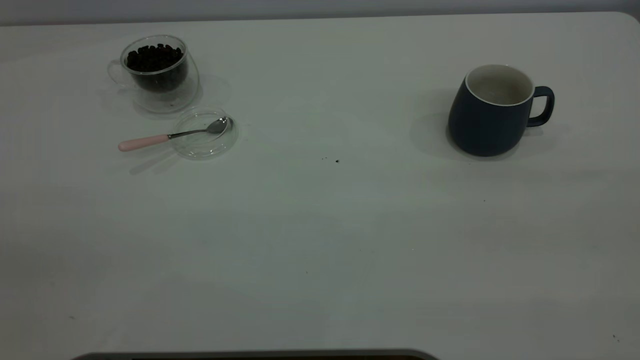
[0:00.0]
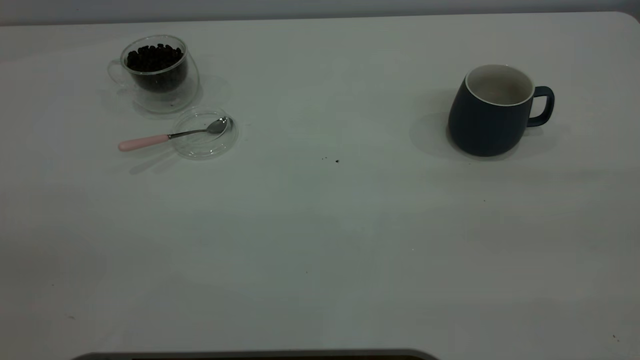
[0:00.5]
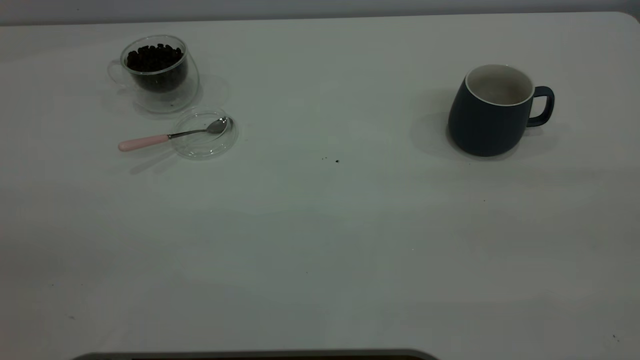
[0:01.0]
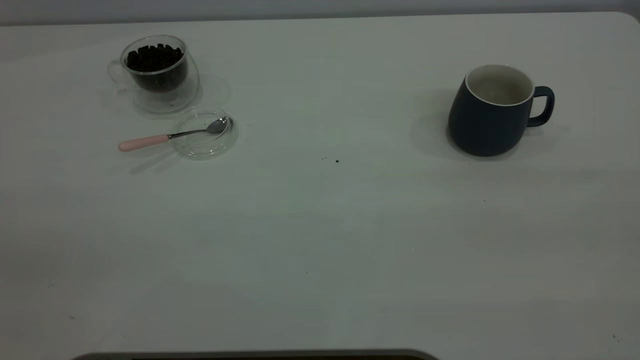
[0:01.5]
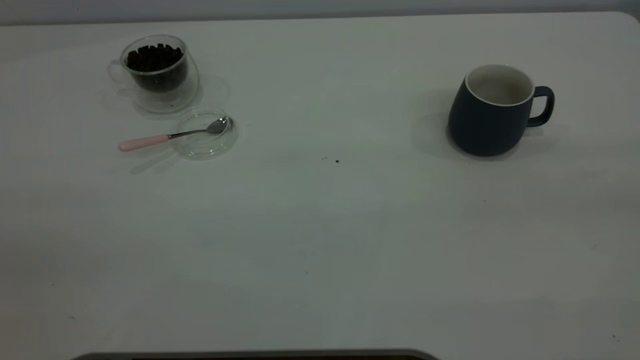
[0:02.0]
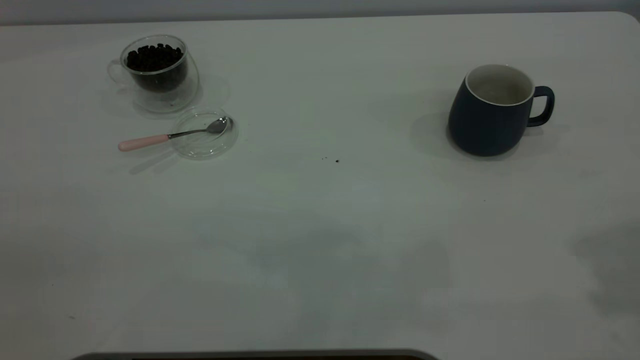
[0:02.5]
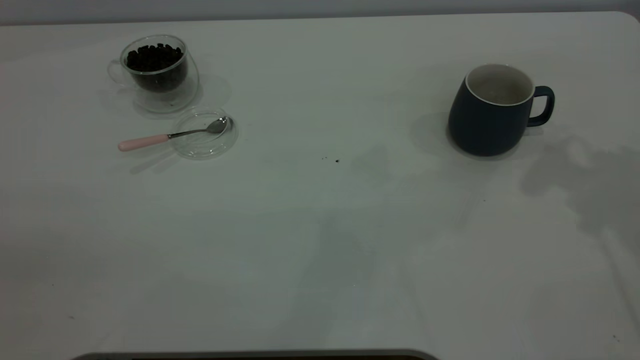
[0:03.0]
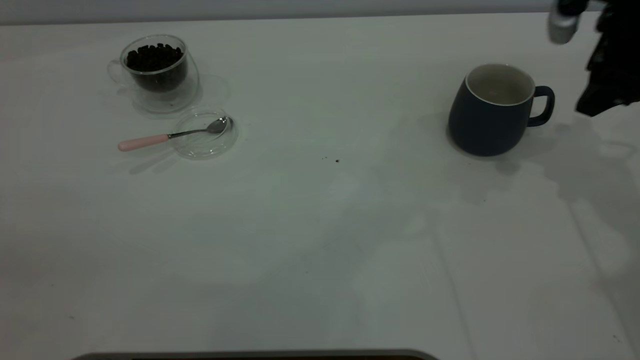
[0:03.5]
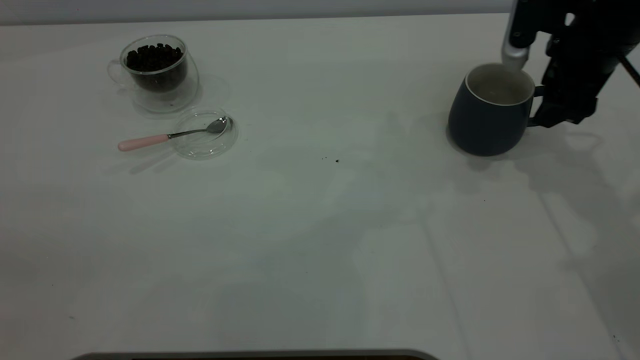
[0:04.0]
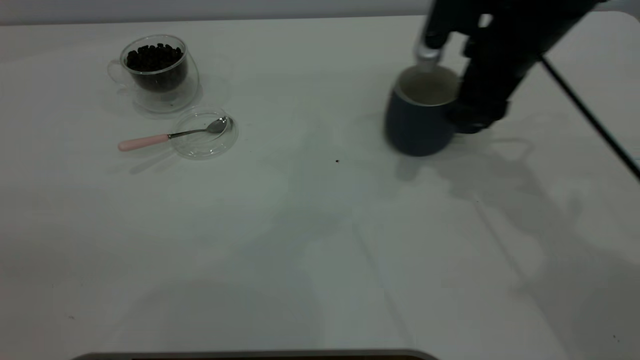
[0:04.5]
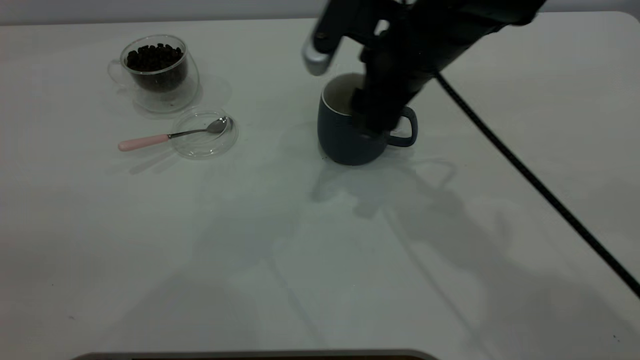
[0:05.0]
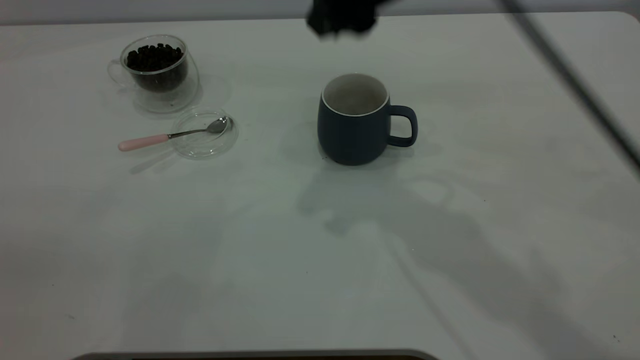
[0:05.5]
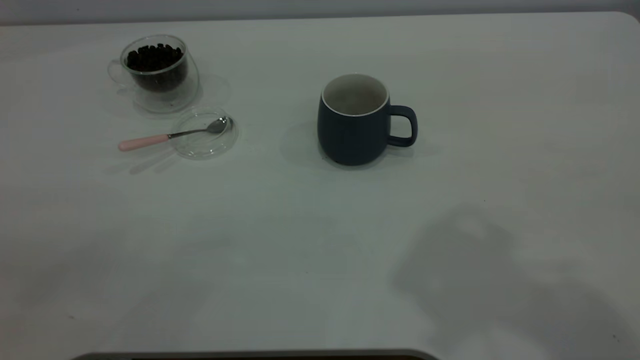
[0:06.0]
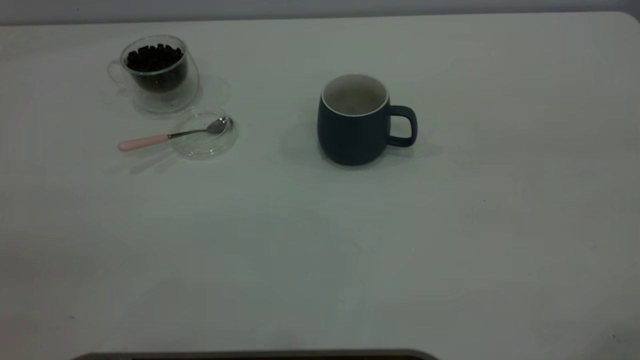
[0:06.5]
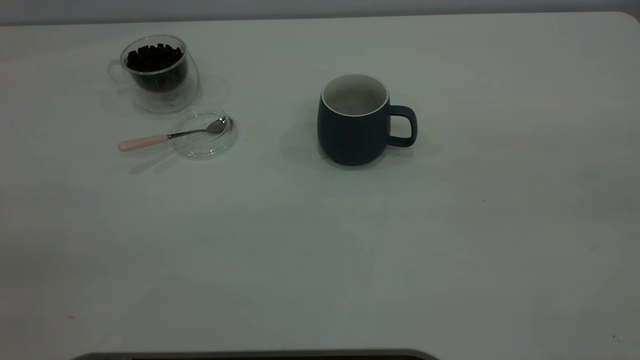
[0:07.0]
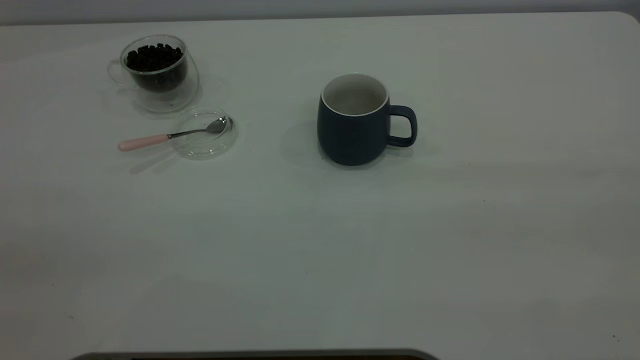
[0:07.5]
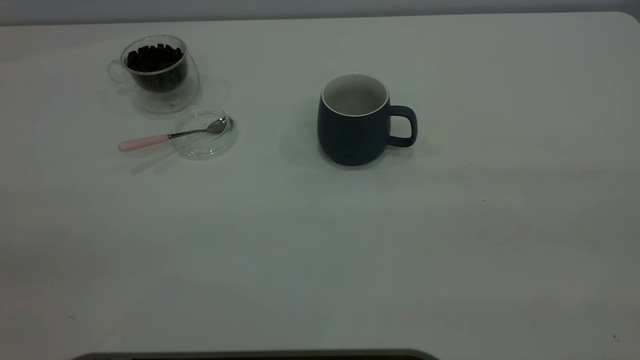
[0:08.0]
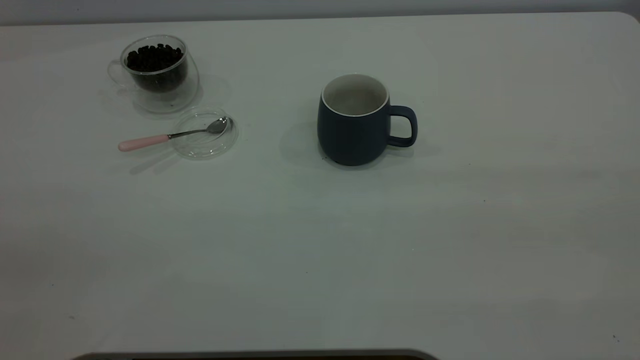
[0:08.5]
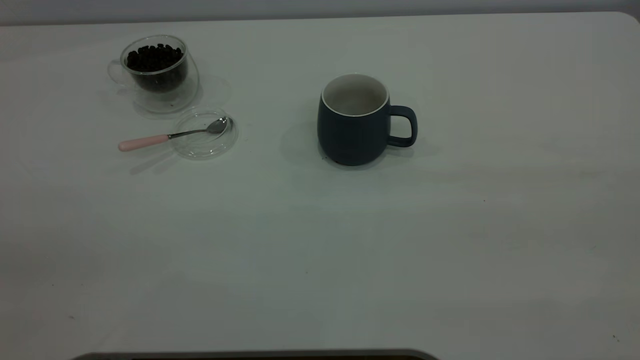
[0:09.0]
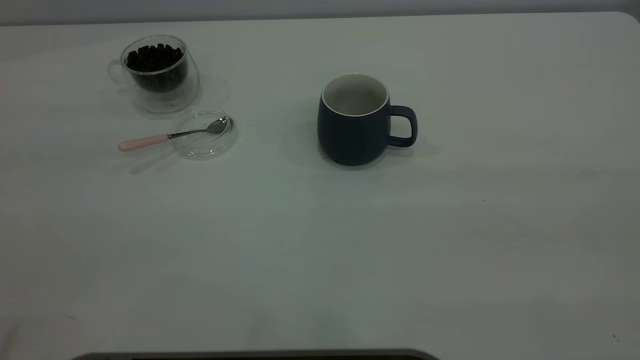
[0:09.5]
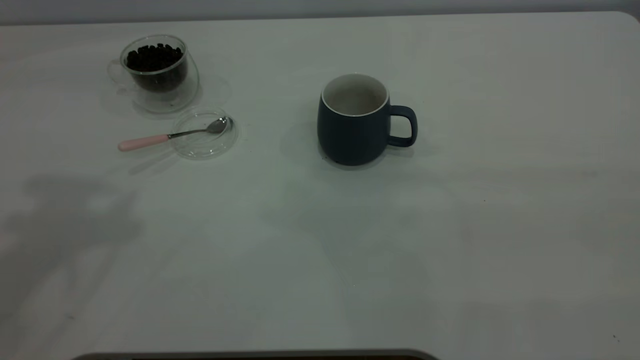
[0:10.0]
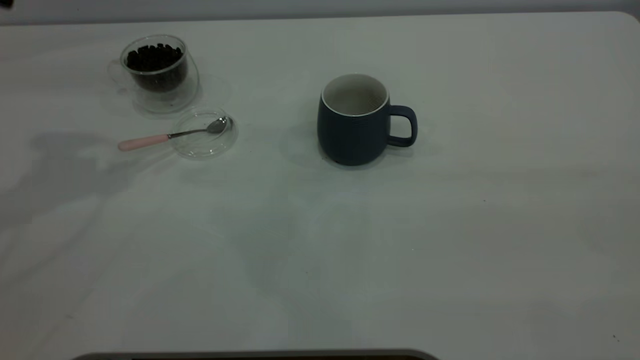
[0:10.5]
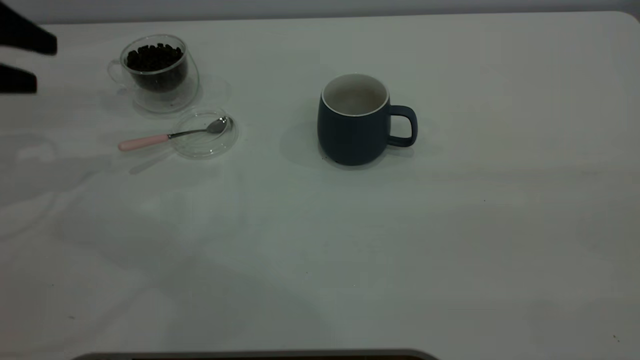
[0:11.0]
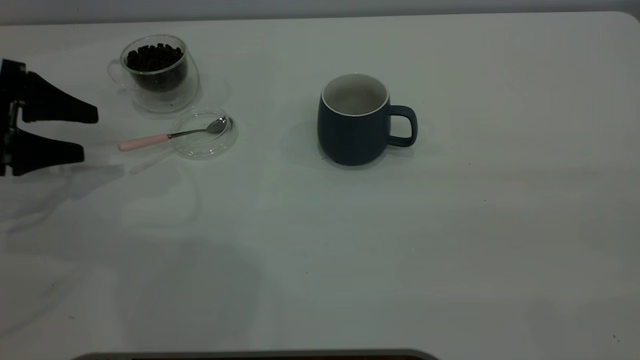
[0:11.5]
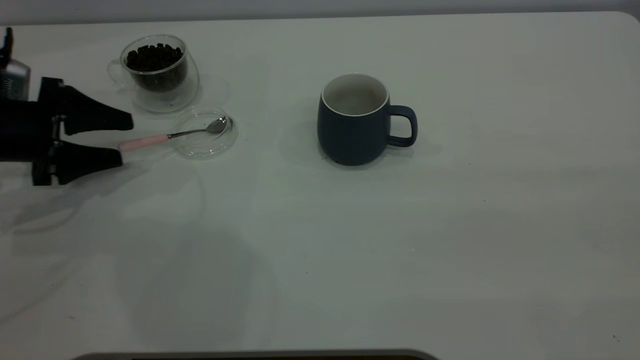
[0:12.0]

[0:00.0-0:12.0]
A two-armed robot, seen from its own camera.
Task of the whole recording: the right gripper place the grey cup in the center of the table, the left gripper take the pink spoon from the cup lid and scoop out the coffee beans from the coffee cup and put them into the grey cup, the left gripper put the spoon back into the cup lid.
Step, 0:00.0 to 0:05.0: Move the cup to the center of view.
0:02.0 to 0:04.0: The right gripper moves forward and downward, about 40 cm.
0:04.0 to 0:06.0: The right gripper travels upward and backward by roughly 35 cm.
0:10.0 to 0:12.0: The left gripper is displaced downward by some 35 cm.

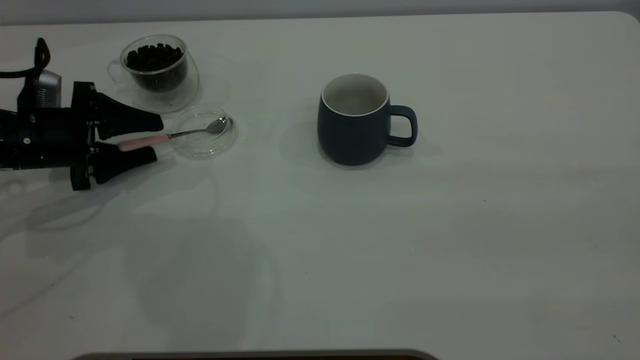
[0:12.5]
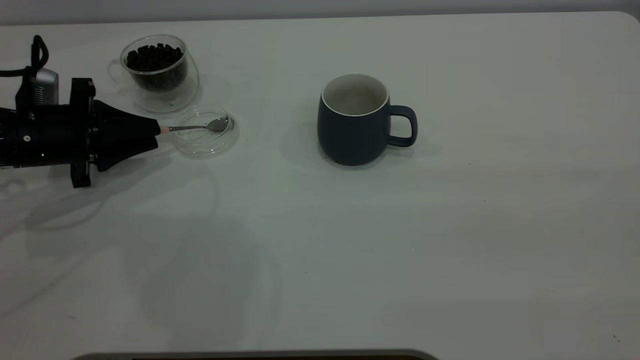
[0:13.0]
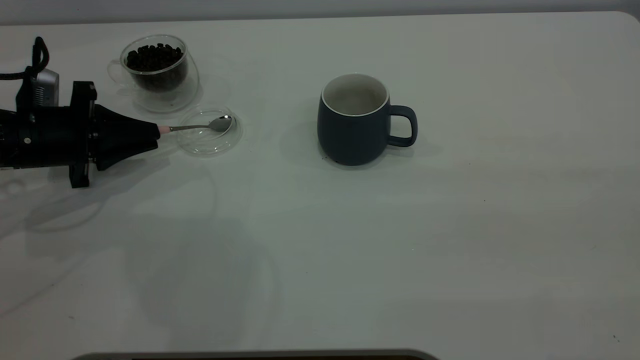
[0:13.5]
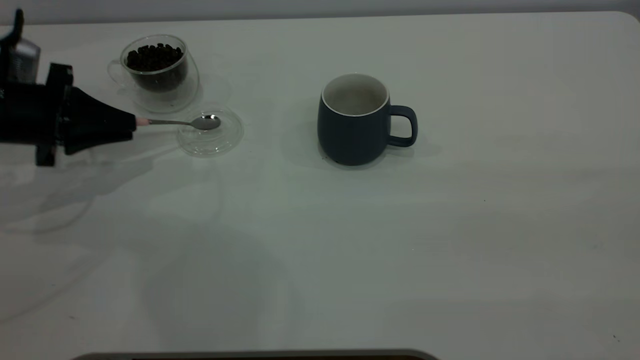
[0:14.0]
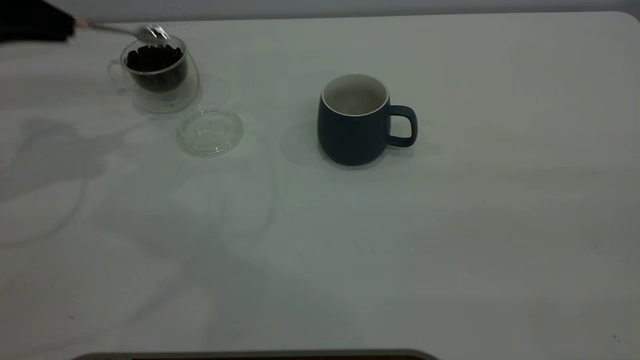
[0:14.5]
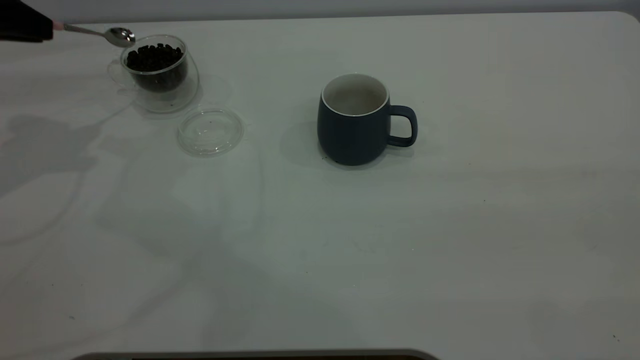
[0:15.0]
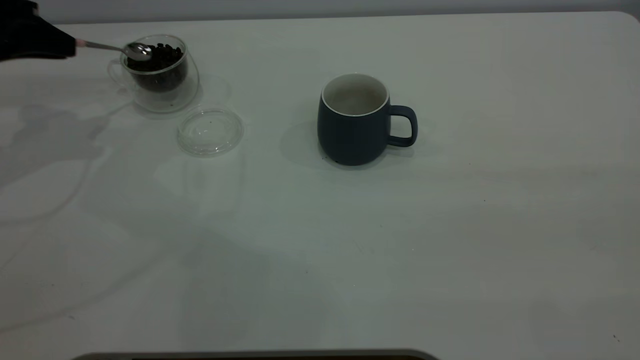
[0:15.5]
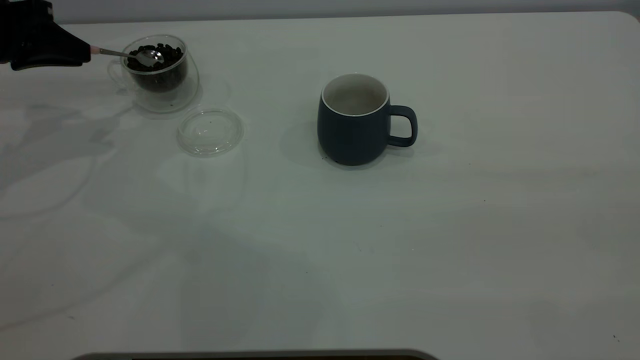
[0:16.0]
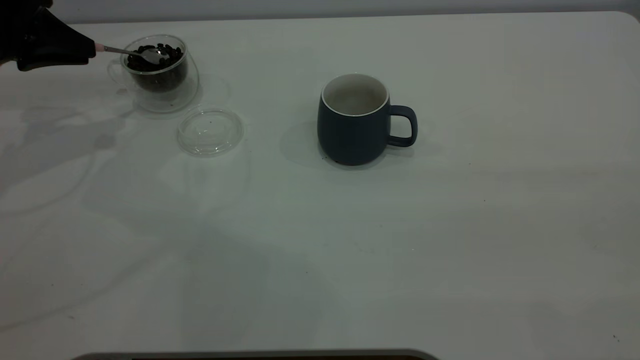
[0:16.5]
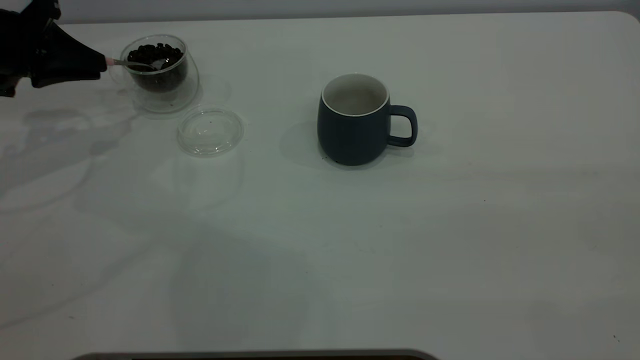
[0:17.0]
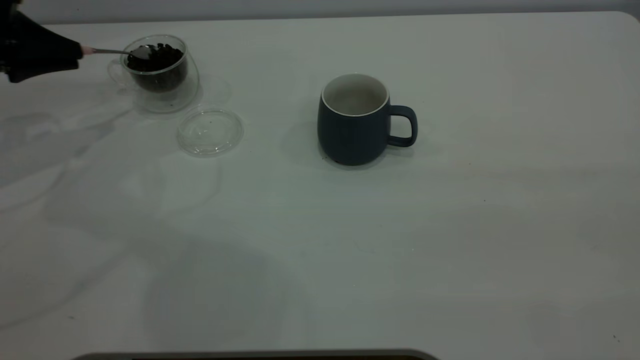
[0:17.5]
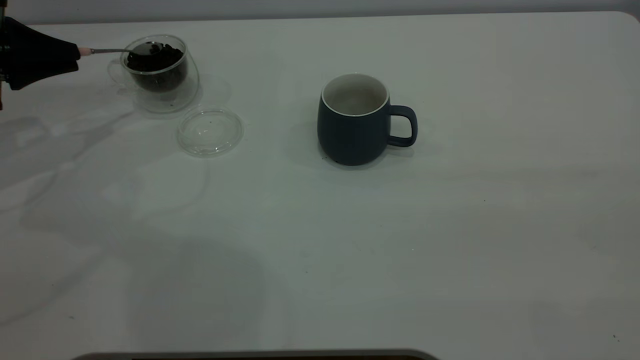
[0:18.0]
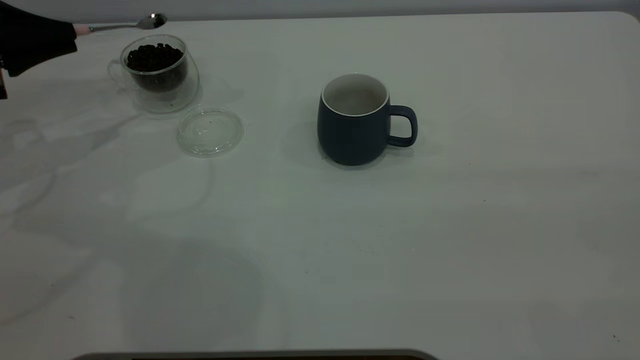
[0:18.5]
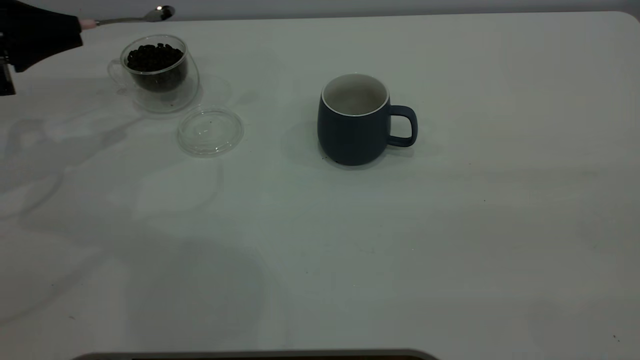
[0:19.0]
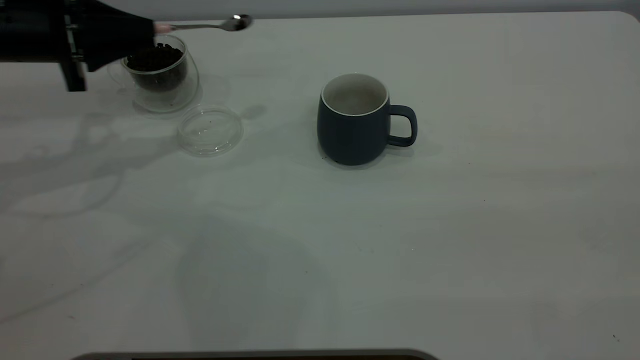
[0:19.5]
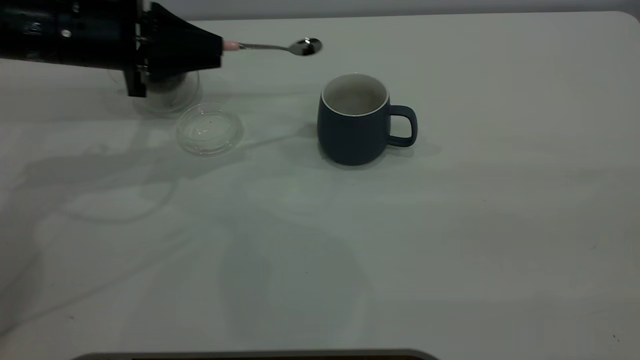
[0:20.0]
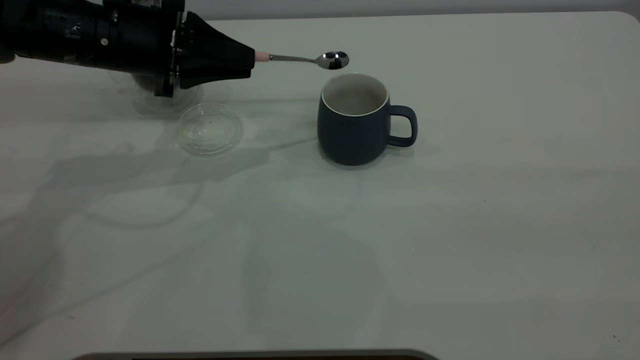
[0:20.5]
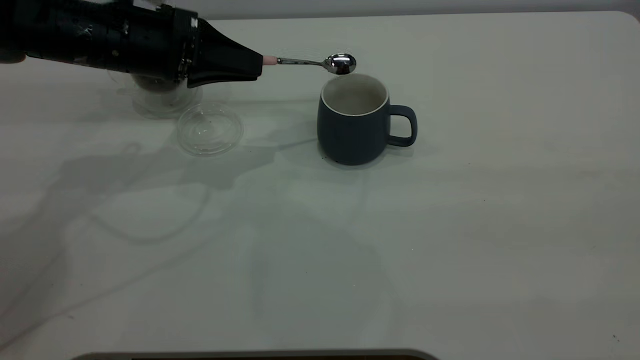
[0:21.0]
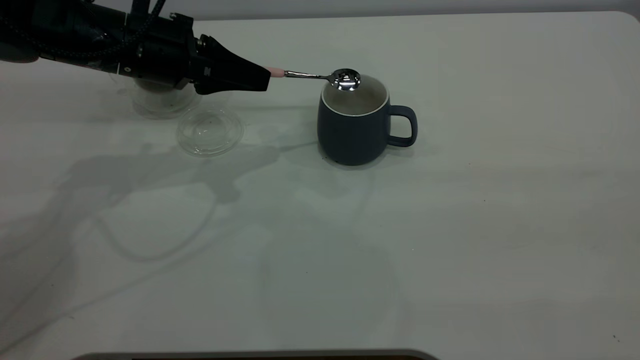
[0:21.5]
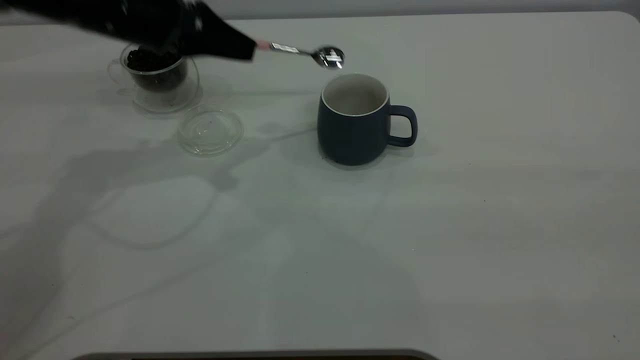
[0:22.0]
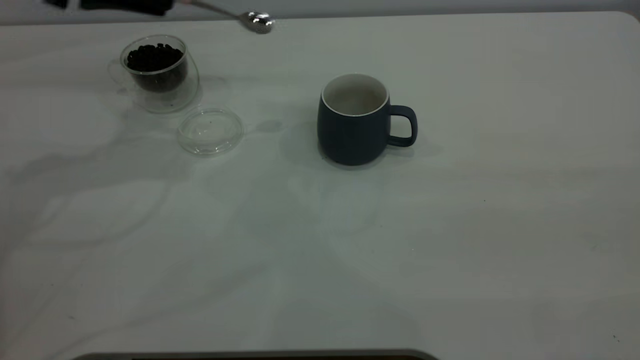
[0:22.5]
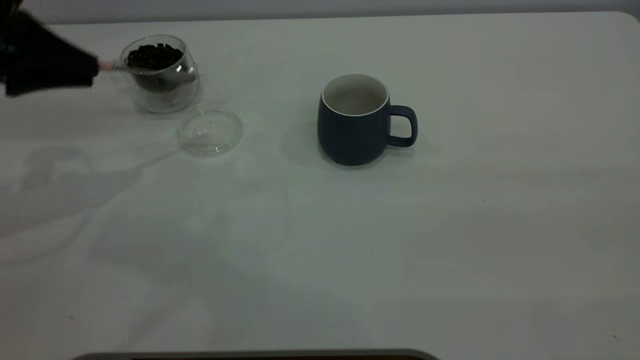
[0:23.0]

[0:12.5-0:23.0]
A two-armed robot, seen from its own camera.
Task of the whole recording: the right gripper place the grey cup in the center of the table, the left gripper take the pink spoon from the cup lid and scoop out the coffee beans from the coffee cup and put them into the grey cup, the left gripper put the spoon back into the cup lid.
Step, 0:14.5 to 0:21.5: Scoop a spoonful of beans into the cup.
0:12.5 to 0:14.5: The left gripper shifts approximately 15 cm upward, and closes up.
0:14.5 to 0:16.5: The left gripper travels downward by some 5 cm.
0:19.0 to 0:21.0: The left gripper shifts some 15 cm to the right.
0:21.0 to 0:23.0: The left gripper shifts roughly 15 cm to the left and backward.
